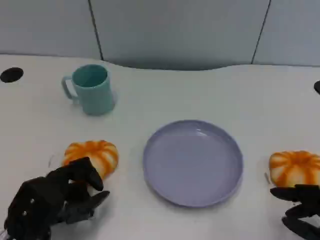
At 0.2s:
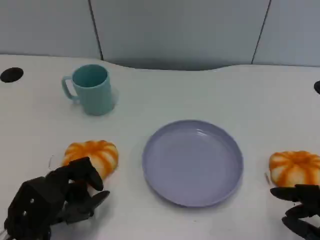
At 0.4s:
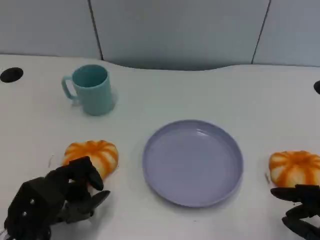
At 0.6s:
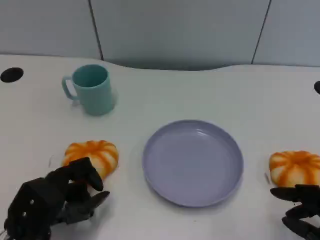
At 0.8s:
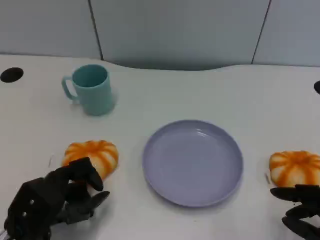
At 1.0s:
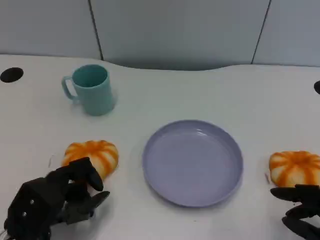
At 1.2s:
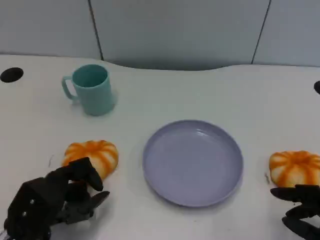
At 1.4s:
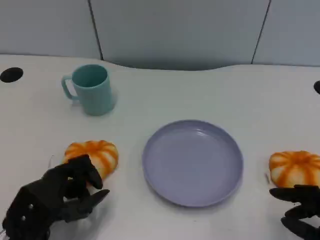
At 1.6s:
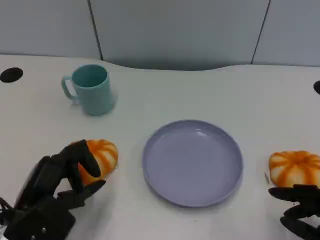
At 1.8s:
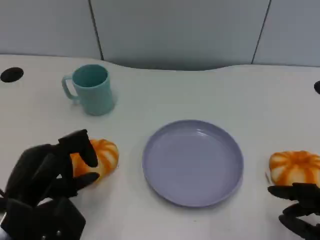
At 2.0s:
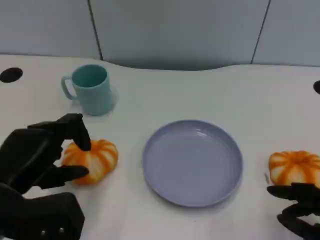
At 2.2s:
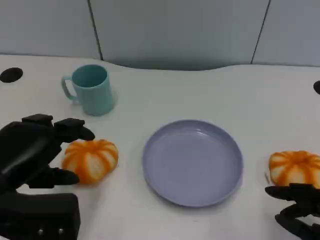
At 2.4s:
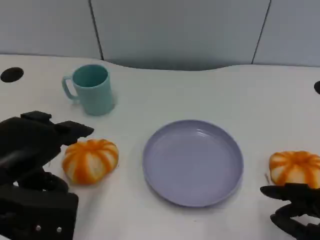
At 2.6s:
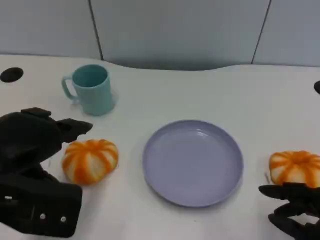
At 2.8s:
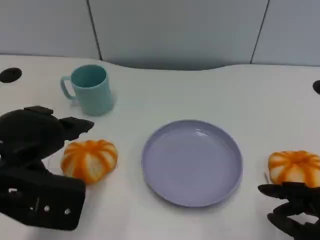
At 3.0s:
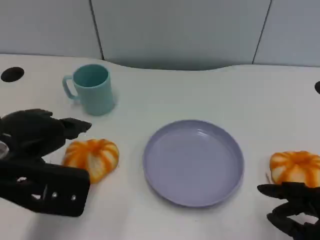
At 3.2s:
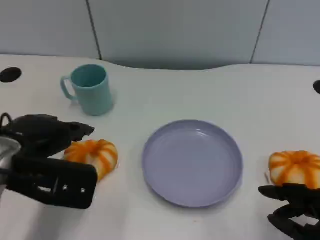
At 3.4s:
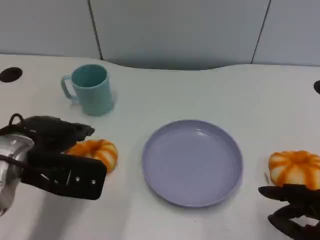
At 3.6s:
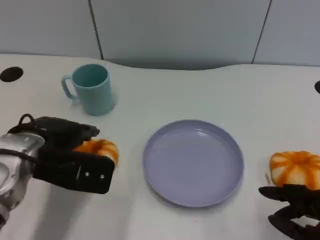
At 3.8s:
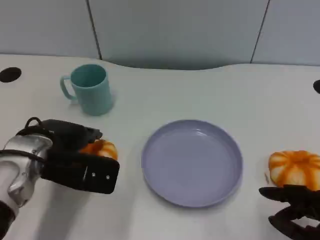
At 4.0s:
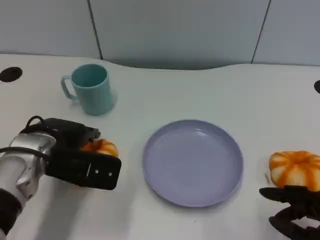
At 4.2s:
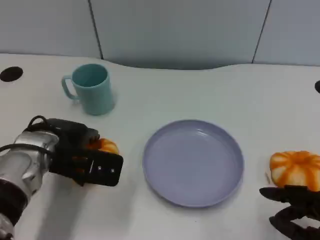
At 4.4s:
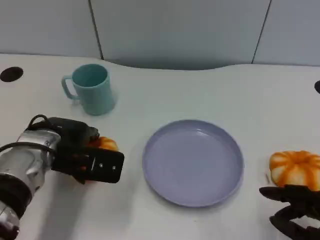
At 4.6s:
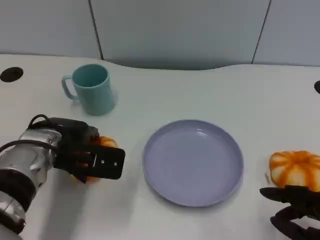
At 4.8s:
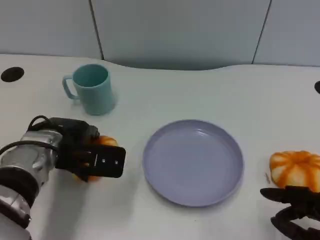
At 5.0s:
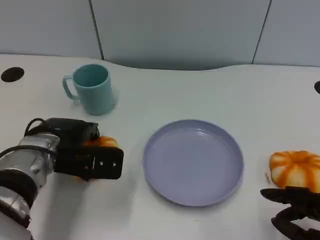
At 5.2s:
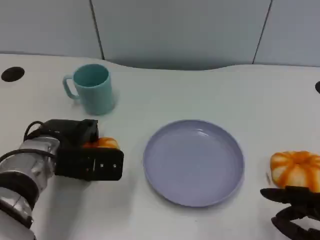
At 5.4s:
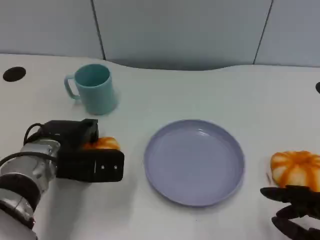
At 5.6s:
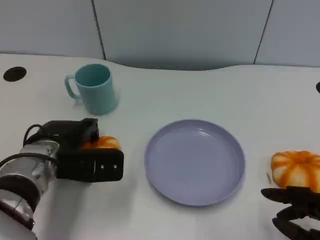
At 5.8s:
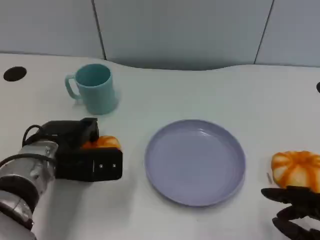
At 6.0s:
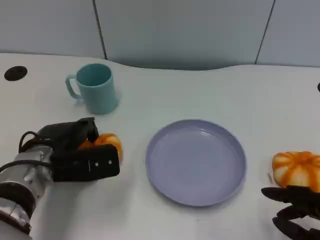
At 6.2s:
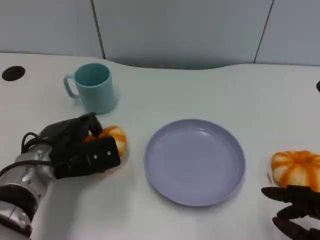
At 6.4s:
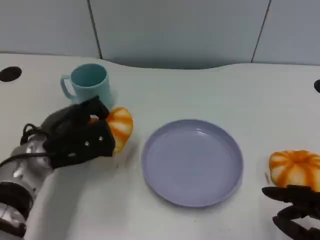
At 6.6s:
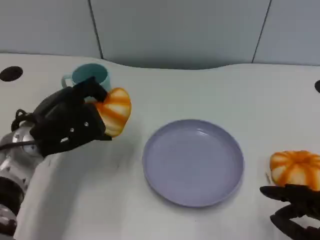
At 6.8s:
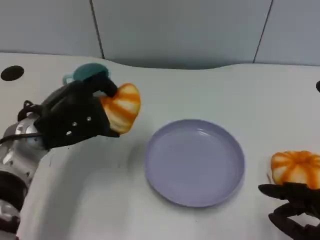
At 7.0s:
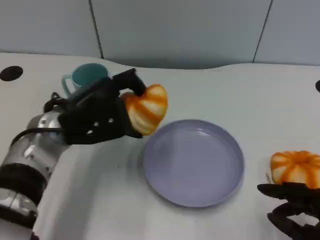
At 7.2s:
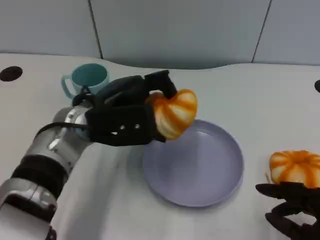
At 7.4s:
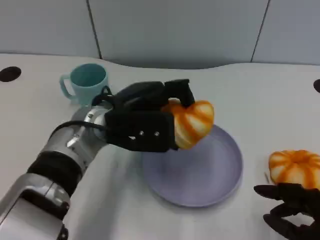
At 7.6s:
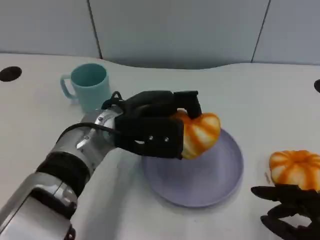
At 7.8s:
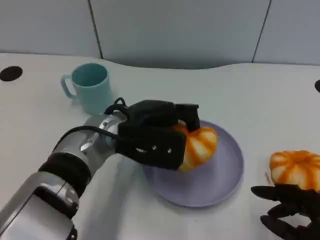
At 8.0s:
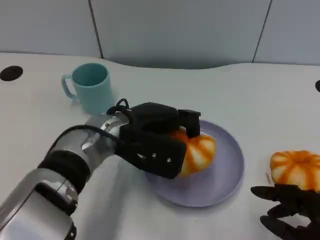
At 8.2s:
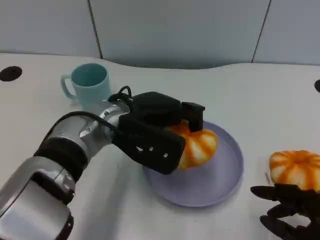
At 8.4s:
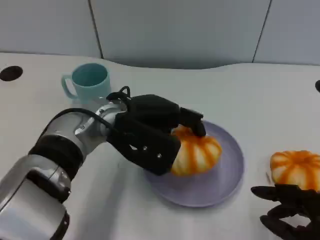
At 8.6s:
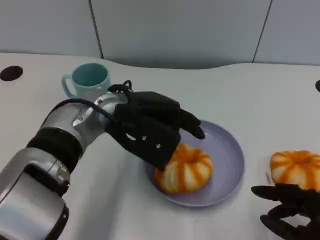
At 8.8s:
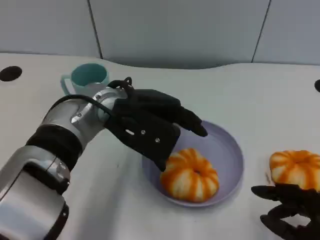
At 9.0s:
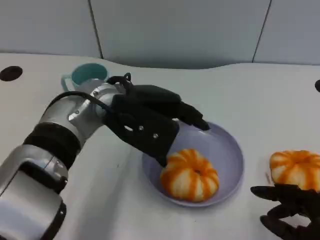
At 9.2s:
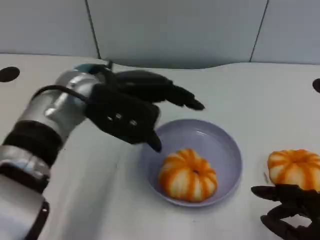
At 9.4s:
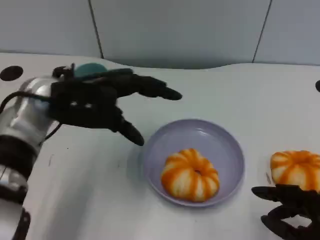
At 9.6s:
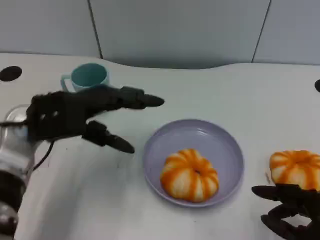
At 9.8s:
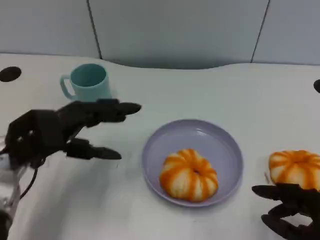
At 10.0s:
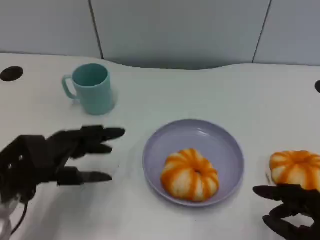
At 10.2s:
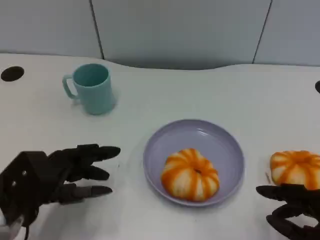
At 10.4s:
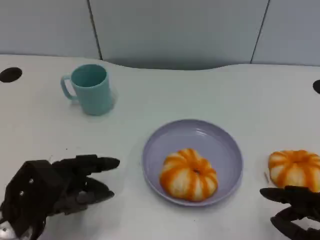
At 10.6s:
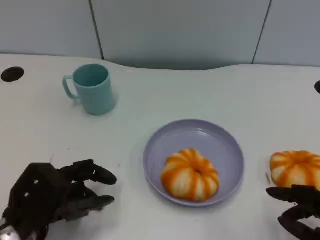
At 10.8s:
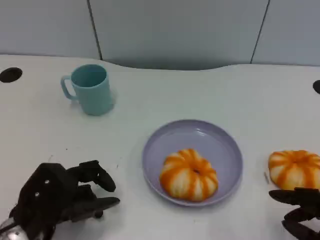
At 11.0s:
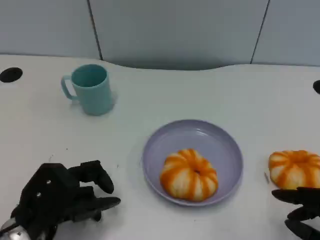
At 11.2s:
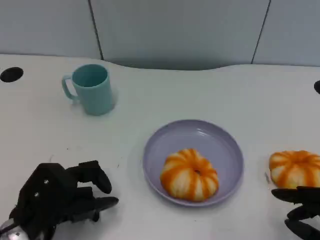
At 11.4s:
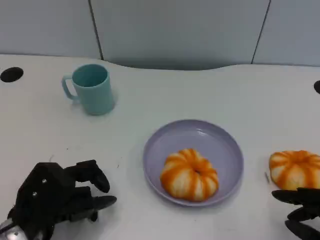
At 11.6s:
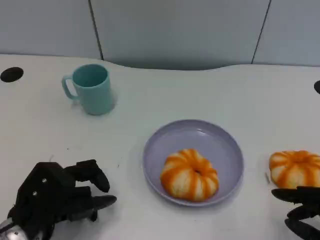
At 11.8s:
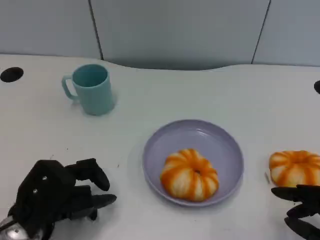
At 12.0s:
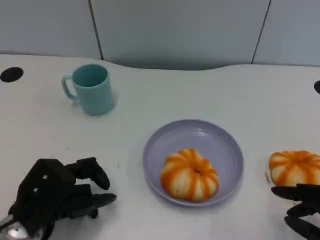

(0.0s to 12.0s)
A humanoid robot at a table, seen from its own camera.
Task of the whole recording: Grasp the bread from the table and place it into the plate.
1.6s - 3.0s: The left hand is displaced upward by about 10 cm.
3.0s - 4.4s: The left hand travels downward and forward by some 10 cm.
6.0s - 7.6s: The left hand moves to the right and upward, approximately 15 cm.
9.0s - 10.4s: The left hand goes approximately 20 cm to the left, backward and downward.
10.4s - 12.0s: The hands make only small movements.

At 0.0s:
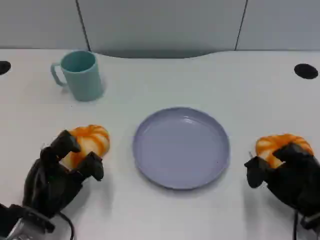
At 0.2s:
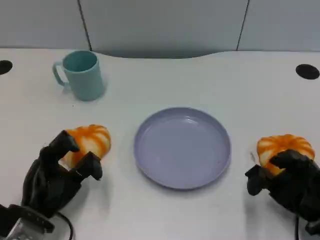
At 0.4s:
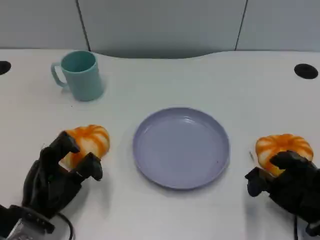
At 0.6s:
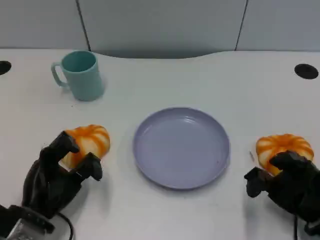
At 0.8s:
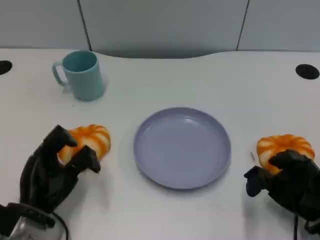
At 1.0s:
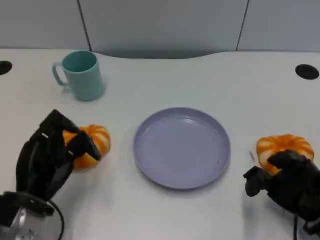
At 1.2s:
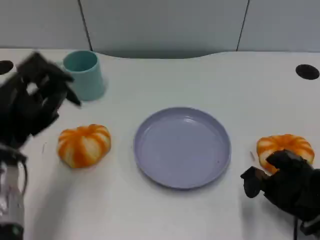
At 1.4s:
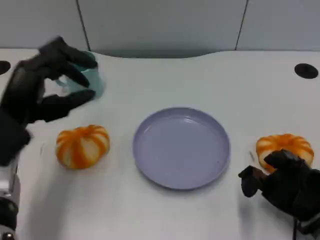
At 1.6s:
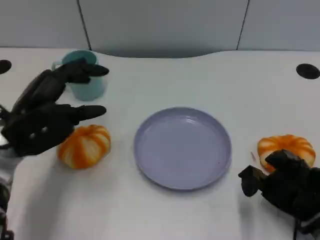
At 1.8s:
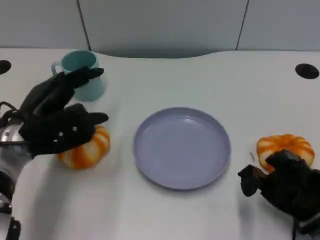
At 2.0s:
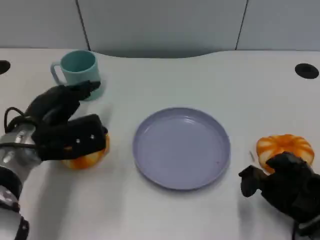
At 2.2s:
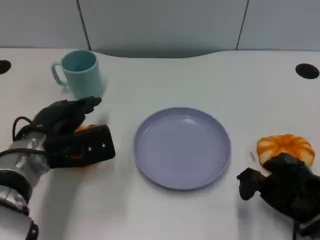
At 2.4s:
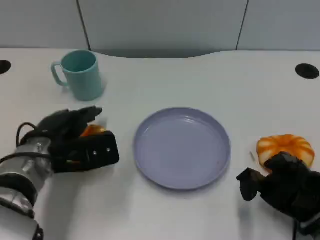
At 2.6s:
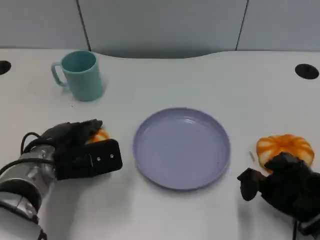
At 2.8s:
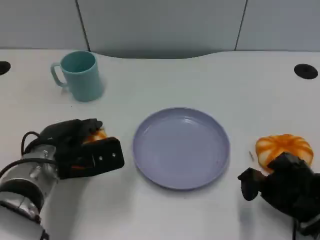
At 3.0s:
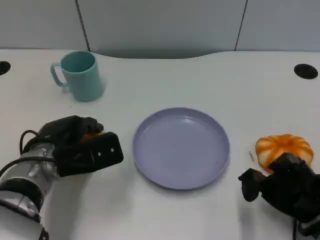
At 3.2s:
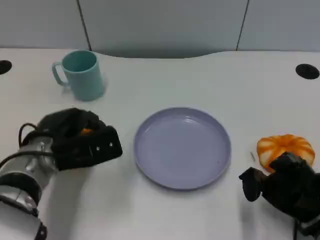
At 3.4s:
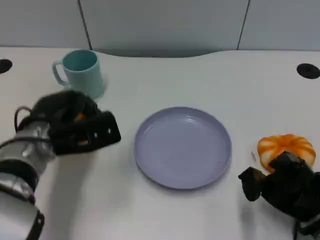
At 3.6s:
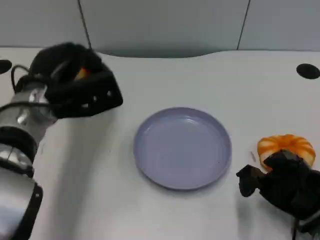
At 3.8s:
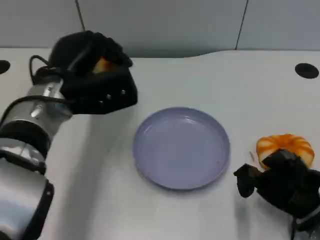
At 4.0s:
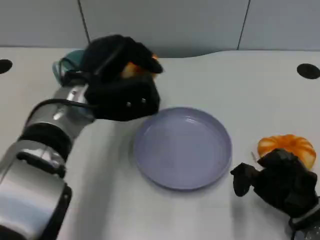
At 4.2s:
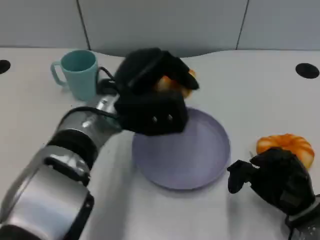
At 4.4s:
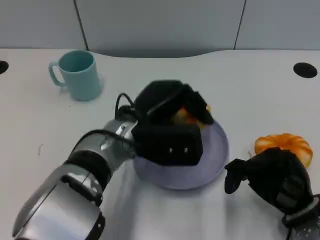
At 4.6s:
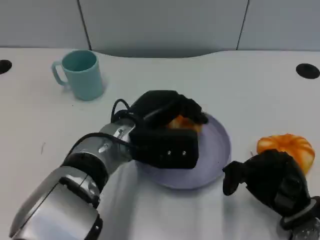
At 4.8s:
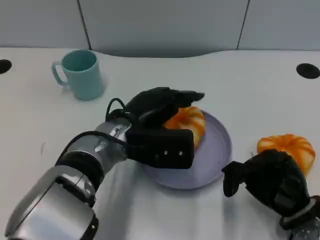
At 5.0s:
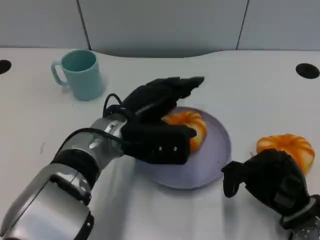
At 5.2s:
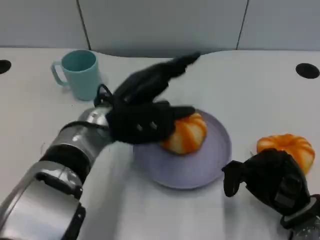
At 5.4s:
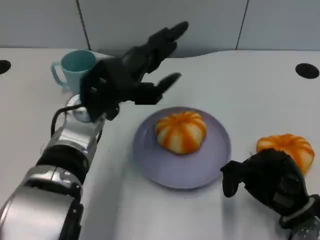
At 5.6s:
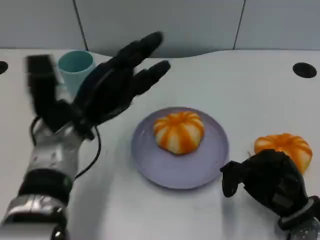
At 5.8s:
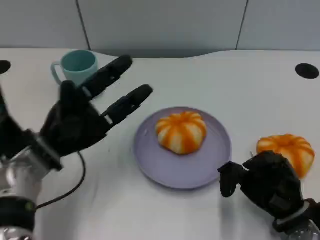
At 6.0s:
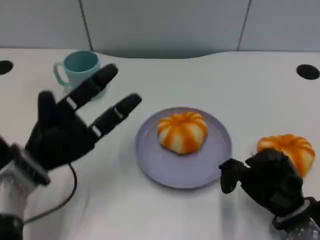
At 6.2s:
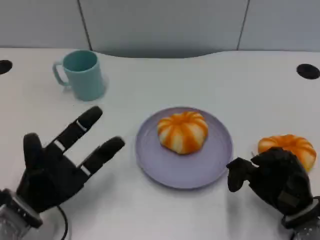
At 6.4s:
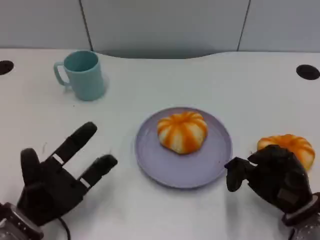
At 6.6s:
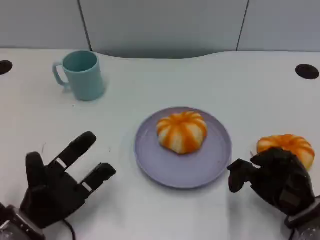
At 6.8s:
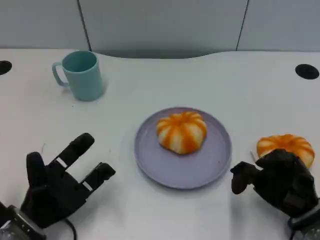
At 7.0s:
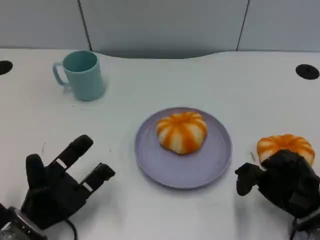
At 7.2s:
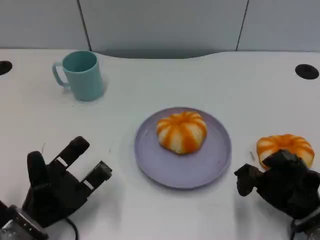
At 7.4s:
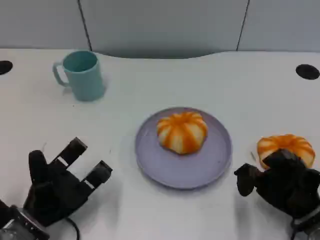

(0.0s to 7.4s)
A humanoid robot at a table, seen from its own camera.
Task of the whole recording: Grasp the bread from the table and place it into the plate.
0.0s - 1.4s: The left hand shifts some 15 cm upward and forward.
1.4s - 3.0s: The left hand is displaced downward by some 5 cm.
3.0s - 4.4s: The left hand heads to the right, covering approximately 10 cm.
4.4s - 6.0s: The left hand shifts approximately 15 cm to the left.
6.0s - 7.4s: The left hand heads downward, covering about 5 cm.

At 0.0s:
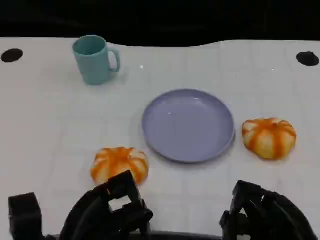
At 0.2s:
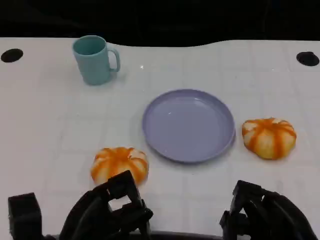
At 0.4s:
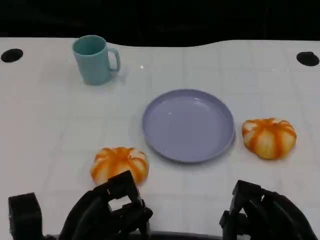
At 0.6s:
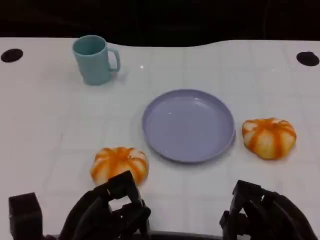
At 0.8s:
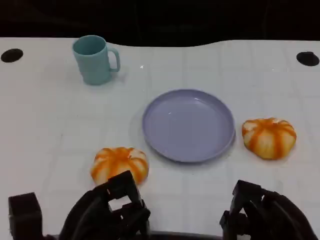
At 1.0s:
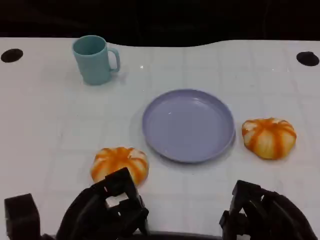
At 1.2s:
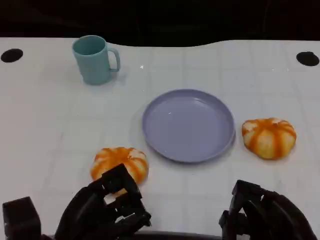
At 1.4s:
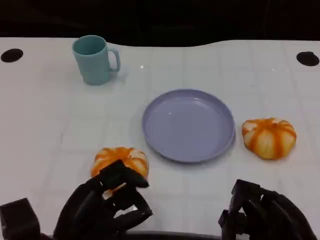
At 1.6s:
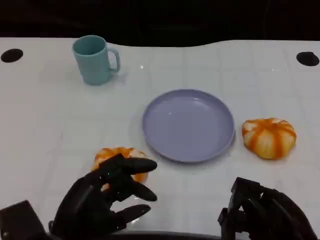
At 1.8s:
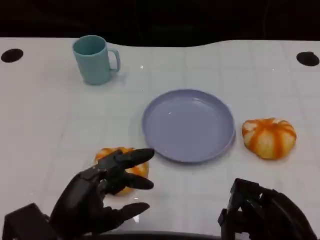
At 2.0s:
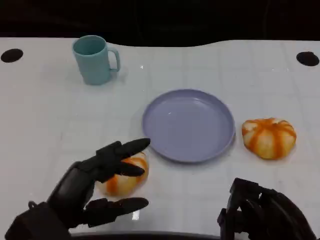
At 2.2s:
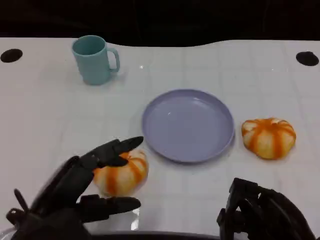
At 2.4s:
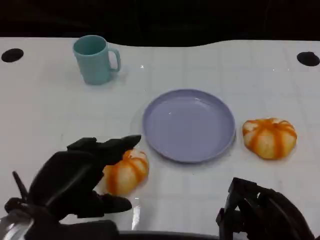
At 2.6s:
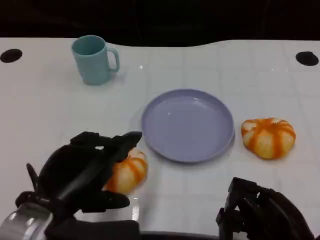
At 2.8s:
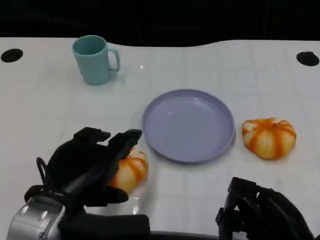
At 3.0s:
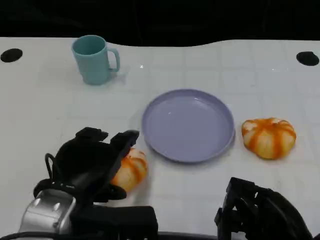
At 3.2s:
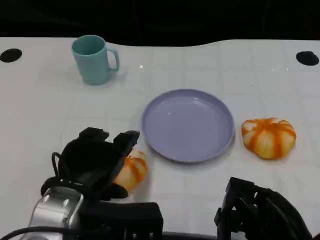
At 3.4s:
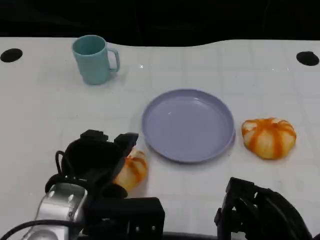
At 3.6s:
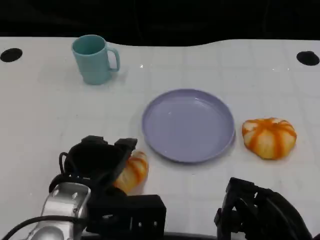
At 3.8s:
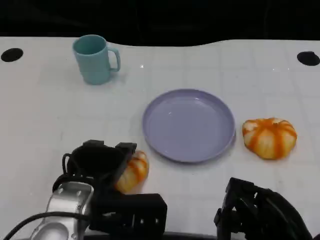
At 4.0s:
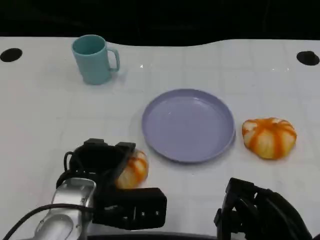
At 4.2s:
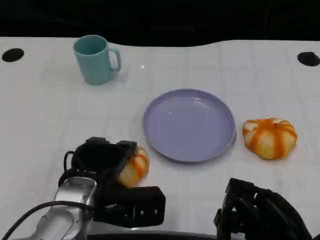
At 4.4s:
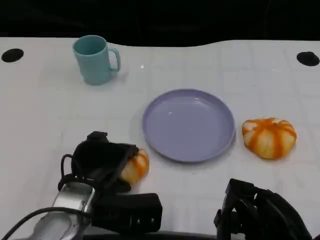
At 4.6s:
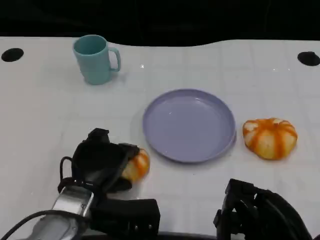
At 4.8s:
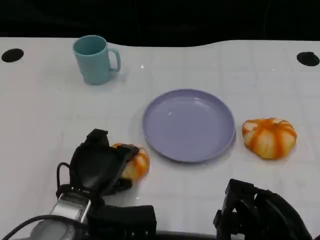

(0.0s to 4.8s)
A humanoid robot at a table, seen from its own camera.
Task of the whole recording: Grasp the bread from the table and place it into the plate.
1.6s - 3.2s: The left hand shifts some 5 cm upward.
3.2s - 4.8s: The left hand travels downward by roughly 10 cm.
